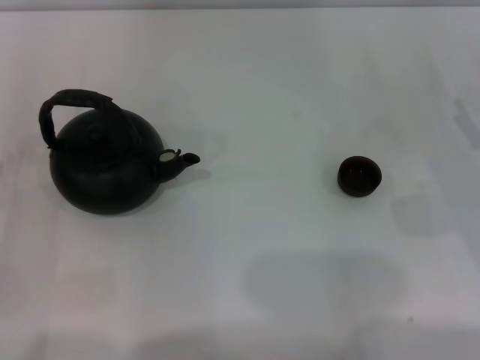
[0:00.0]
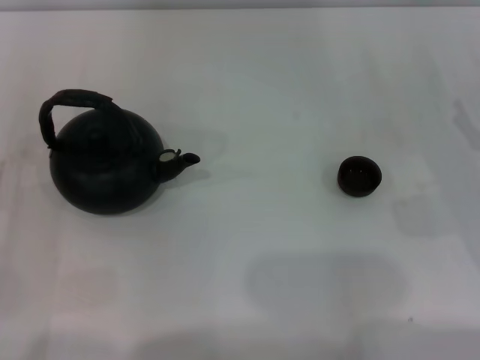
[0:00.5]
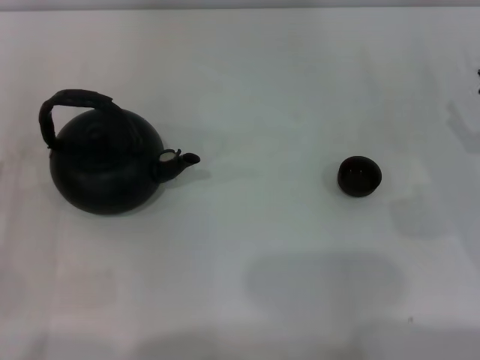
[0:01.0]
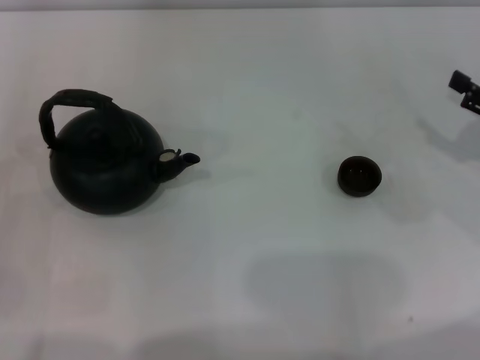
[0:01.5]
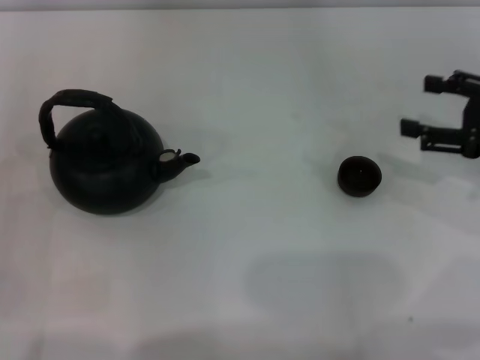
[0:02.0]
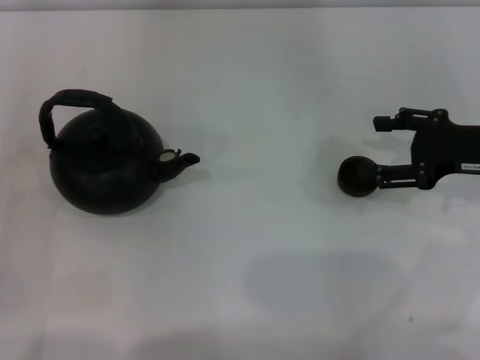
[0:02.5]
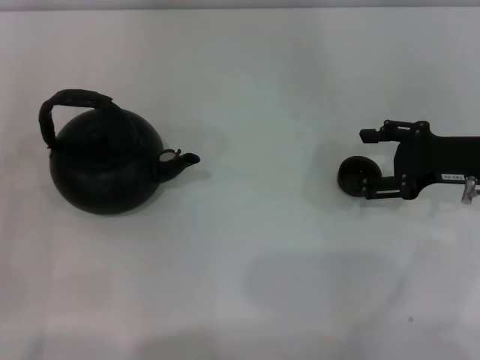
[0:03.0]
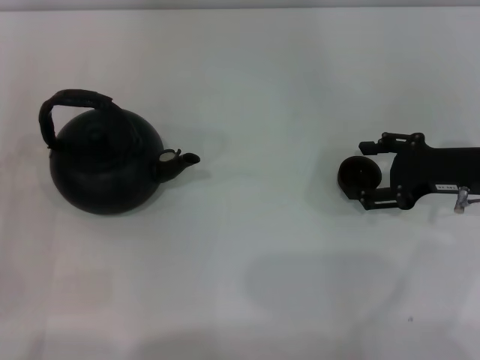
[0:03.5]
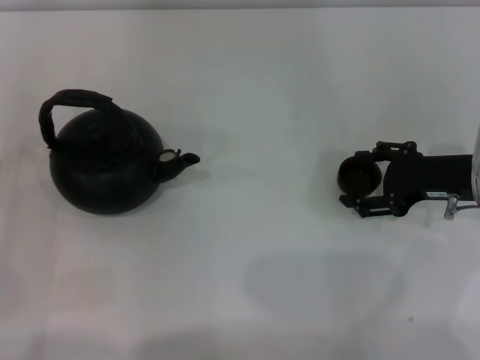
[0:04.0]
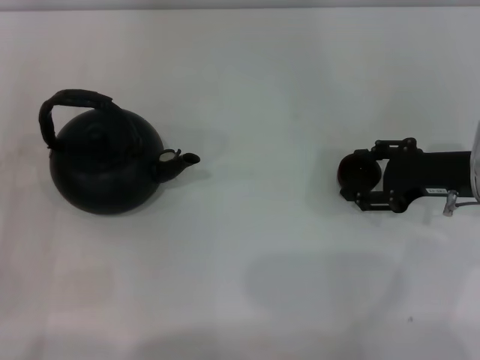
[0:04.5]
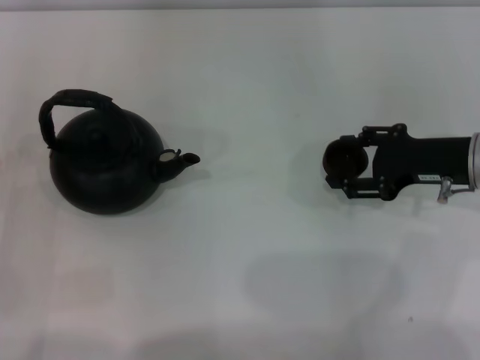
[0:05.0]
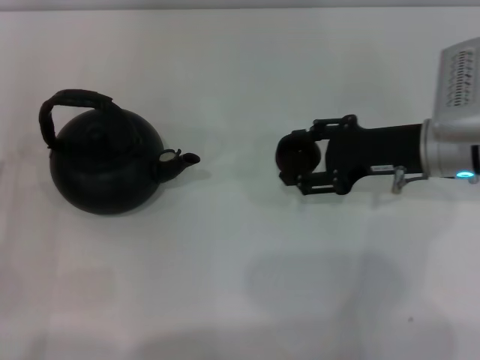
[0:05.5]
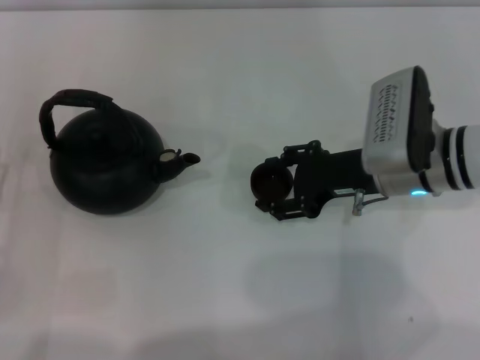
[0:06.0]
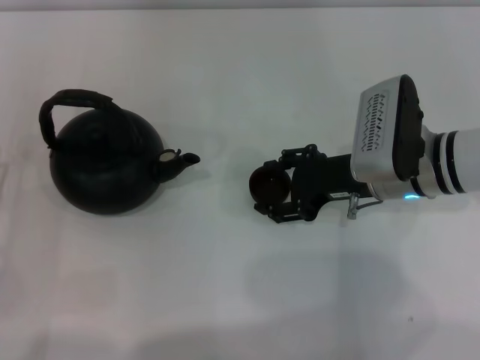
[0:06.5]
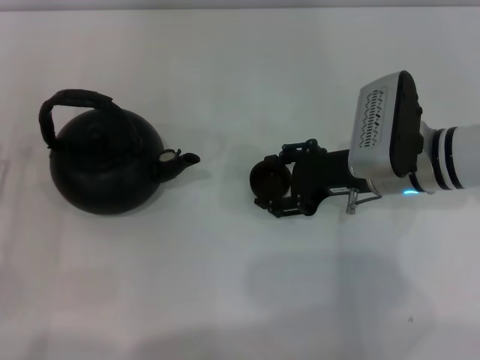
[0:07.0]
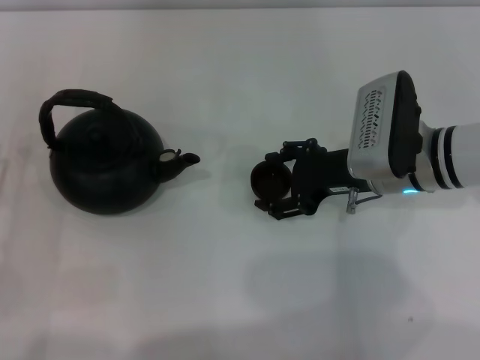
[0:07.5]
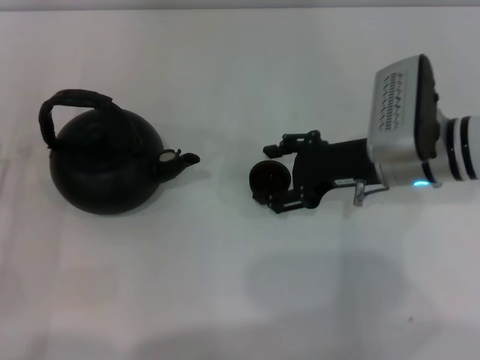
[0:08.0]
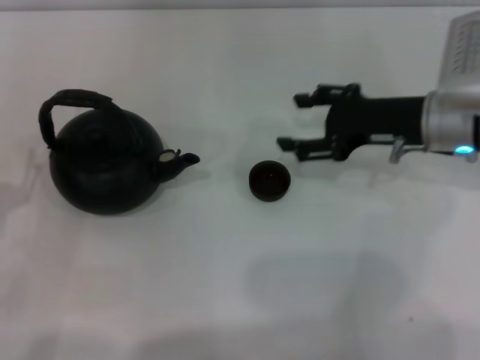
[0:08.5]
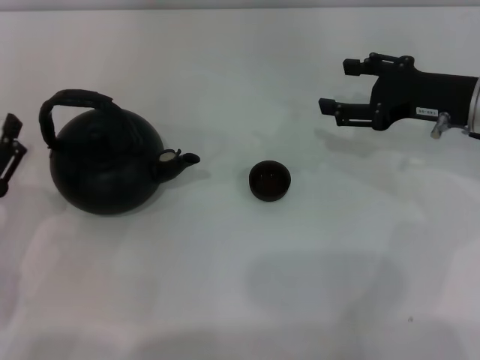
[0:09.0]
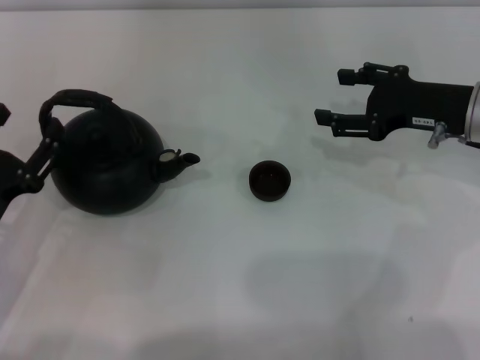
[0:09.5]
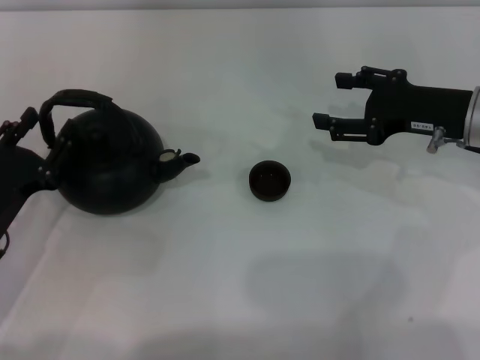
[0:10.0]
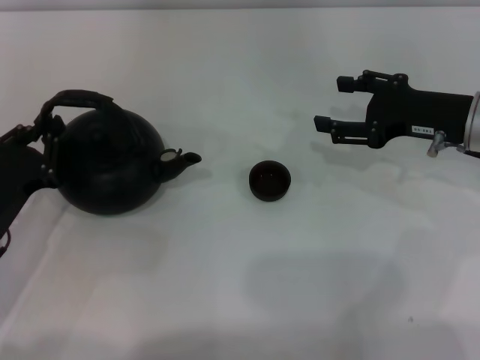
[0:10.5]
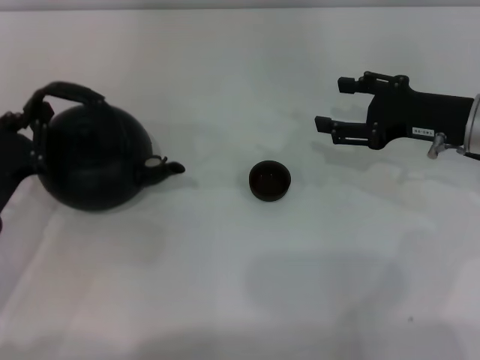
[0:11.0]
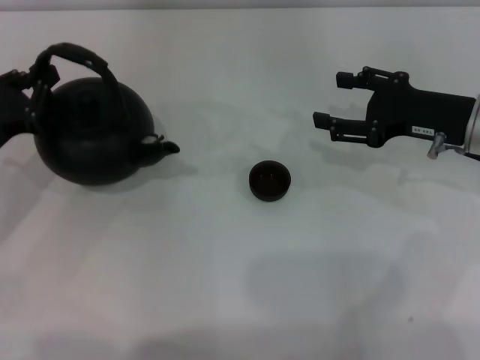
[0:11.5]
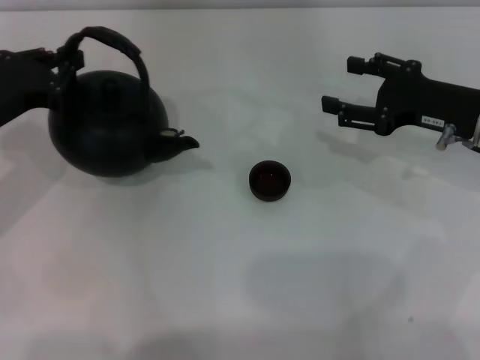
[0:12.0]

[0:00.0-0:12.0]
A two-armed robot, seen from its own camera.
Task of the whole recording: Grasp the handle of the teapot with one hand and pour tea into the teacup.
Step, 0.0 to 5.0 s: Pick up the teacup with the right gripper.
Step, 5.5 to 8.0 s: Place the teacup in the center of view with the right gripper.
Step, 8.5 to 11.0 s: Pick up the teapot with the left gripper.
0.0 to 2.0 s: The right gripper goes about 10 cm upward.
2.0 to 4.0 s: The right gripper heads downward and to the left, covering approximately 10 cm.
4.0 to 6.0 s: The right gripper is displaced to the left by roughly 10 cm, and closes its fingers.
6.0 to 8.0 s: The right gripper opens.
8.0 to 10.0 s: The left gripper ends up roughly 5 cm from where it was; the right gripper is displaced to the right by roughly 10 cm.
10.0 to 12.0 s: The left gripper shifts some 15 cm upward and forward, and closes.

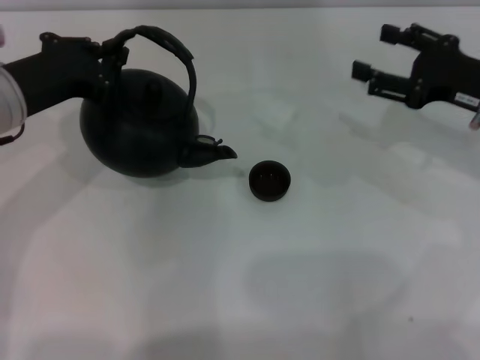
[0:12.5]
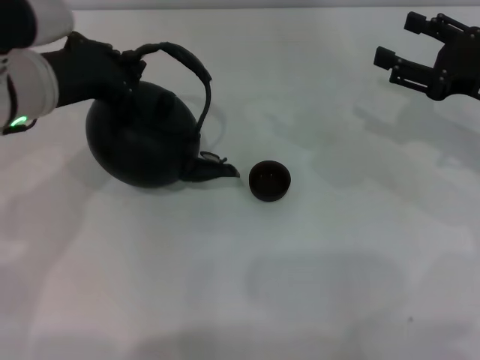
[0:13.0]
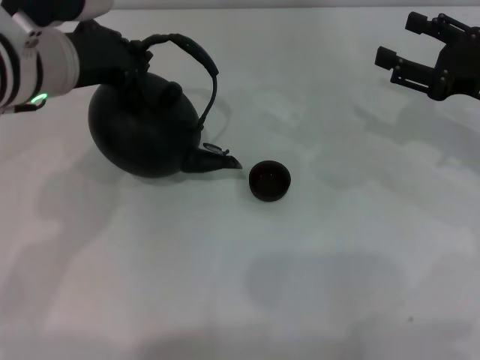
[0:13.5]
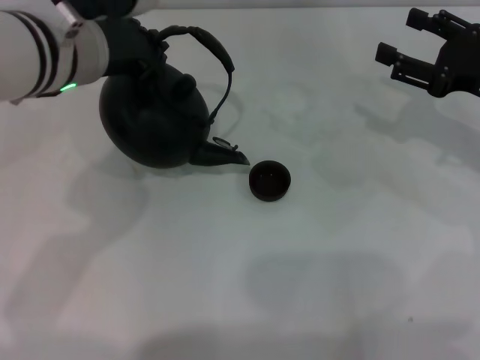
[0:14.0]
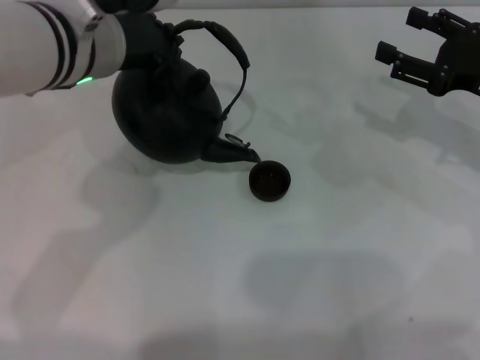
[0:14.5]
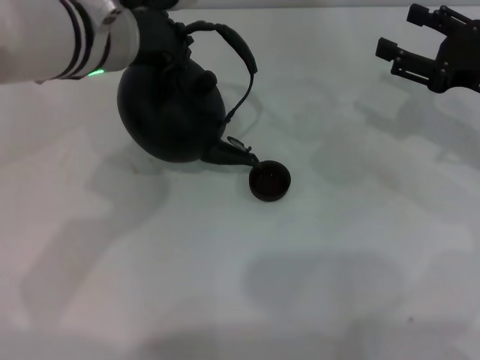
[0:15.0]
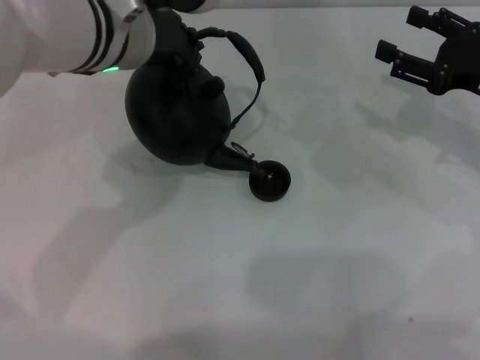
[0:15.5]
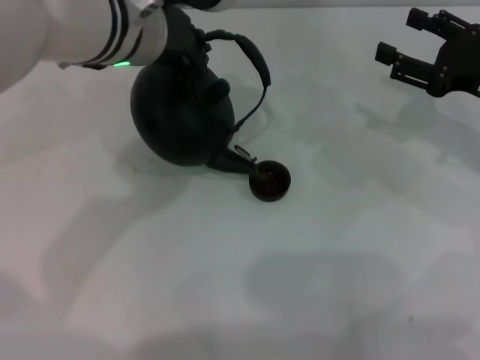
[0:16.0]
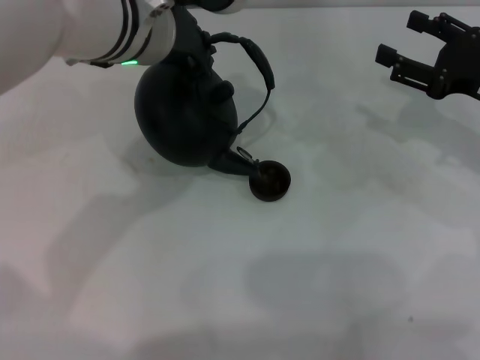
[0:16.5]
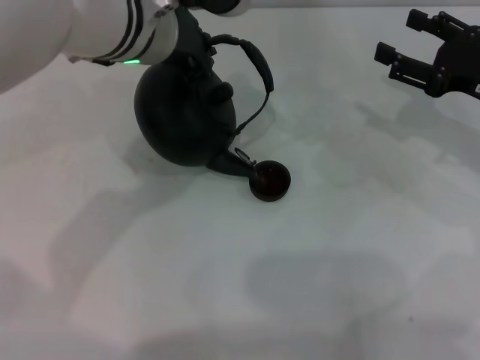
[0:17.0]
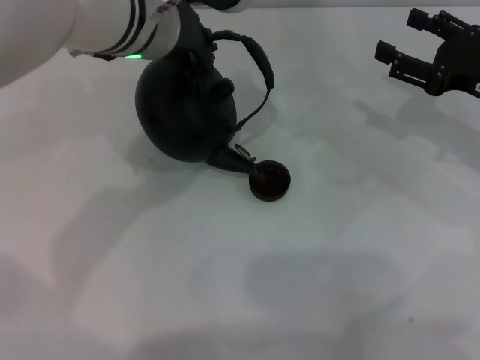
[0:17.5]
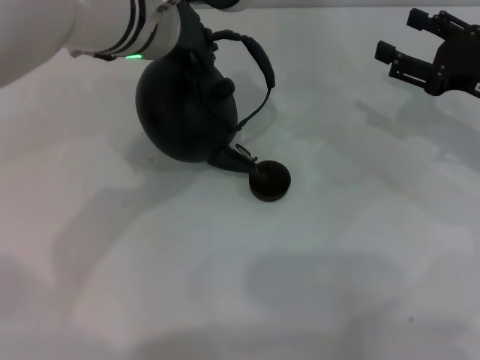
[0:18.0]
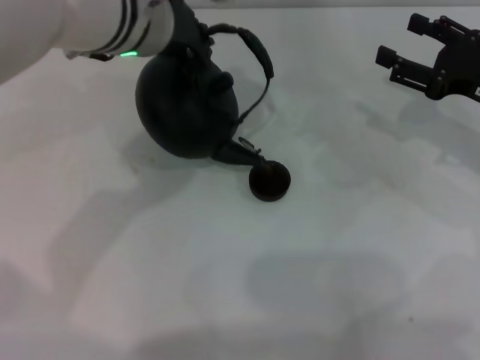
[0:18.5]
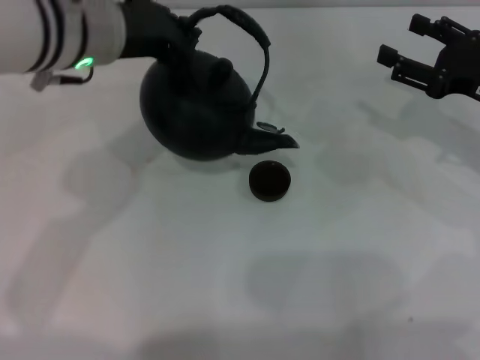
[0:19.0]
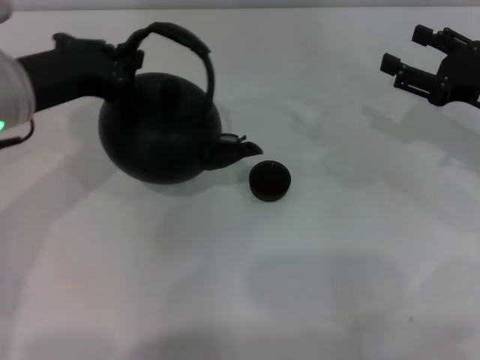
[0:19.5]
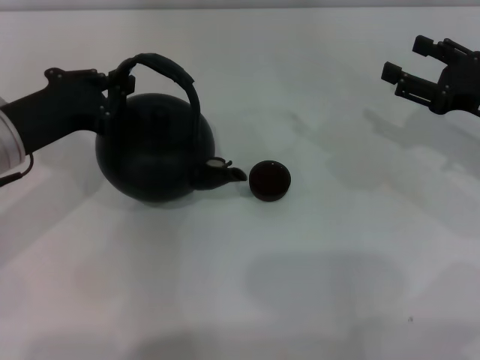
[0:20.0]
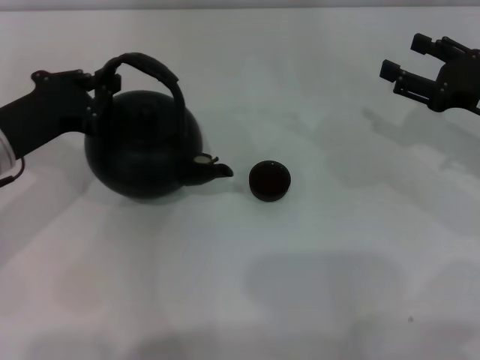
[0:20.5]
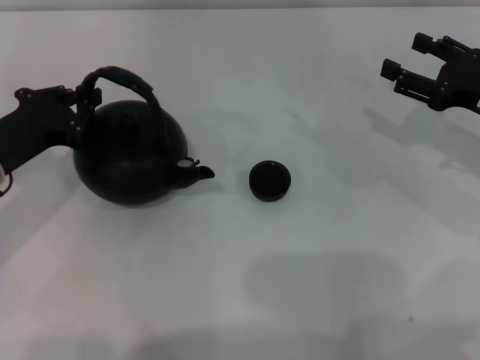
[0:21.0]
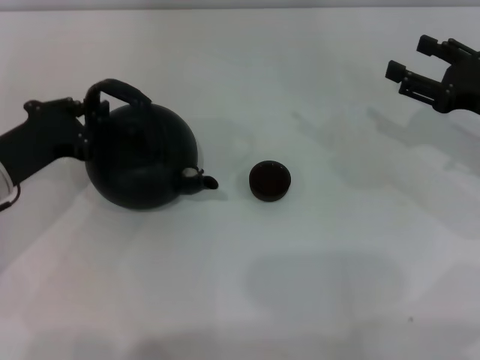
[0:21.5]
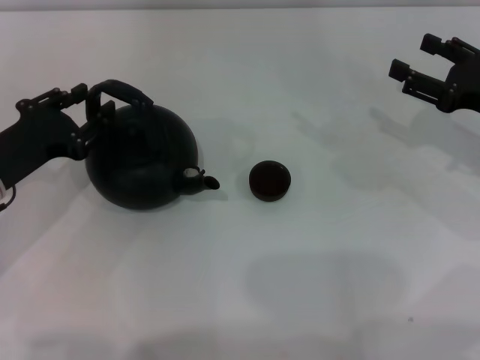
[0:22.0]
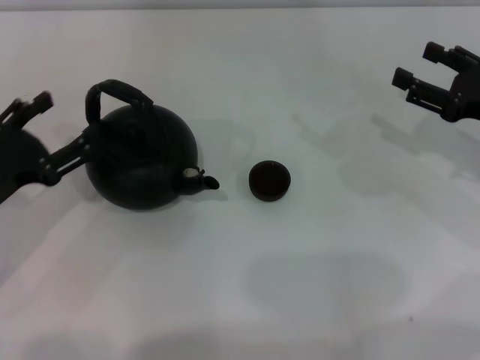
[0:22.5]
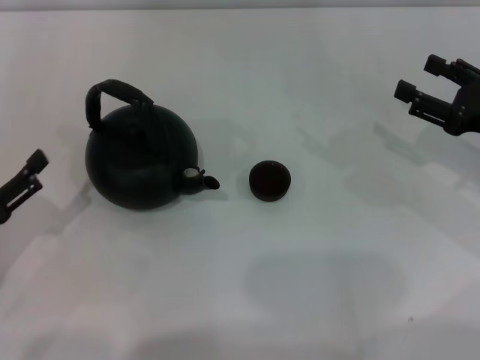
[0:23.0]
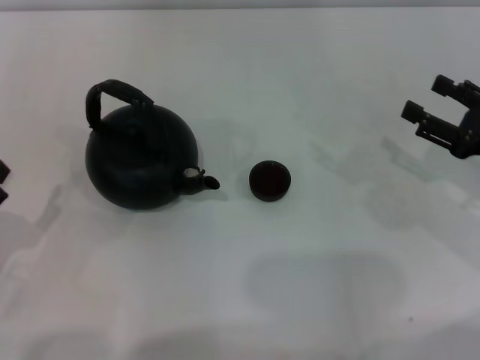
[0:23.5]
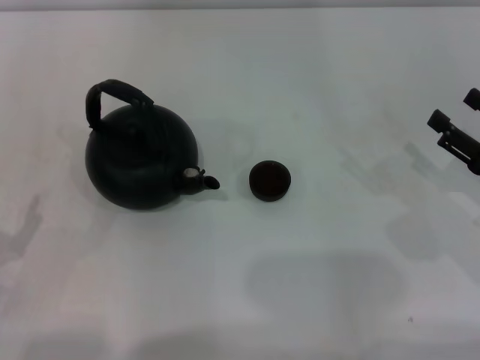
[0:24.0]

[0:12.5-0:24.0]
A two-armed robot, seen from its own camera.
Task of the whole recording: Grasp the handle of the teapot with one hand and pour tea into the teacup.
Step, 12.5 to 19.0 s: Pour tea into the teacup with the left gripper.
Step, 19.5 to 22.5 s: Put down the teapot with the left gripper.
12.5 to 14.5 s: The left gripper goes approximately 10 cm to the right and upward.
14.5 to 16.5 s: The grippers make only small movements.
16.5 to 18.5 s: Both grippers stay about where they are.
18.5 to 20.0 s: The left gripper is displaced to the left, downward and backward by about 20 cm.
20.0 to 22.0 s: The left gripper shifts by about 5 cm.
22.0 to 24.0 s: The left gripper heads backward, covering about 15 cm, and opens its fingers. Meanwhile the right gripper travels backward by some 10 cm.

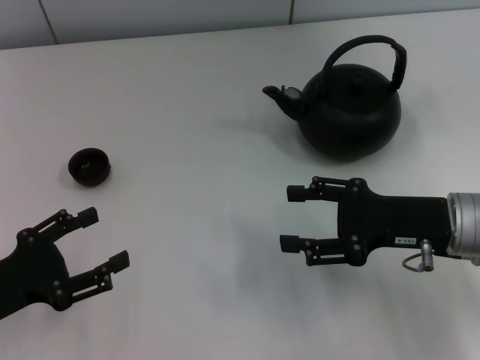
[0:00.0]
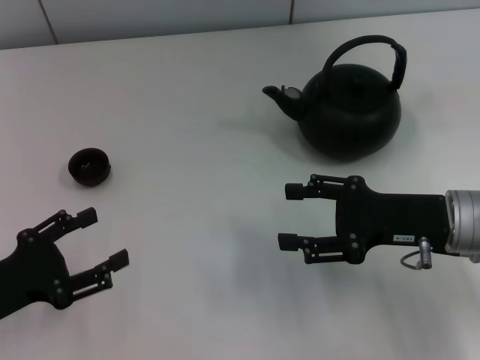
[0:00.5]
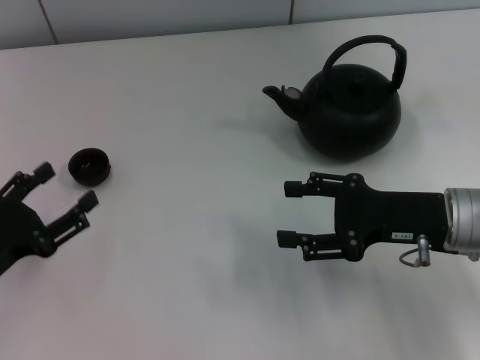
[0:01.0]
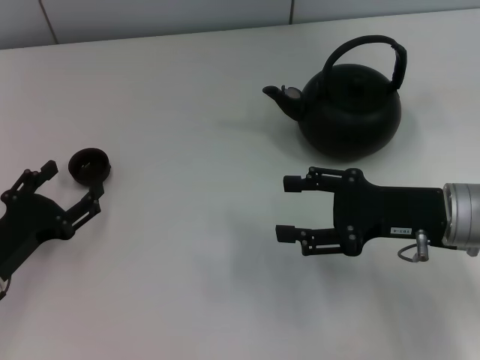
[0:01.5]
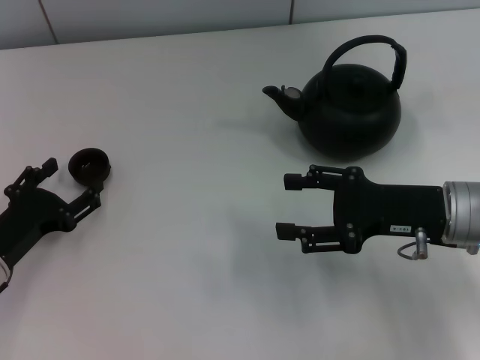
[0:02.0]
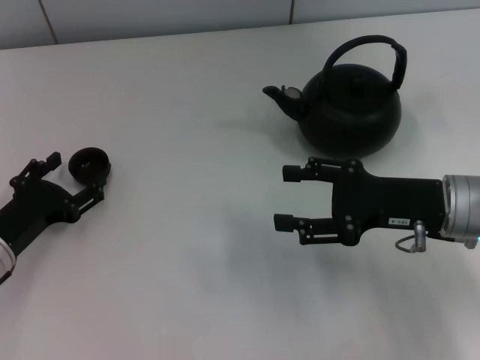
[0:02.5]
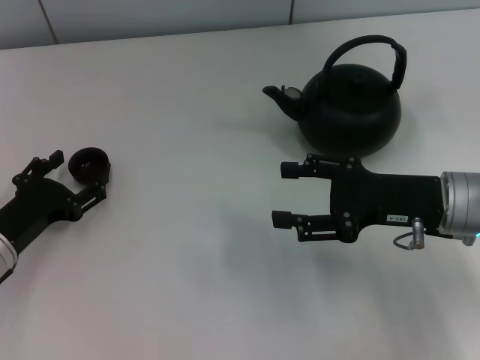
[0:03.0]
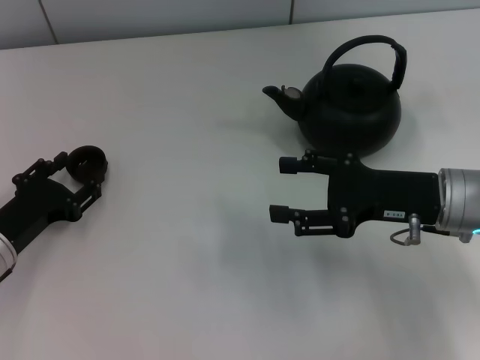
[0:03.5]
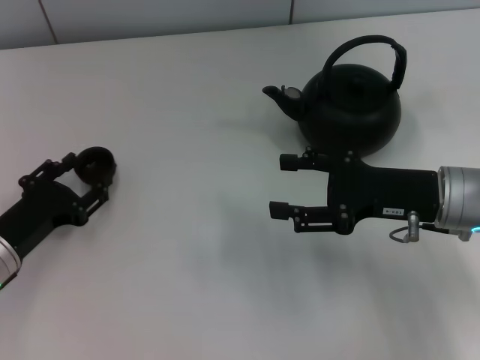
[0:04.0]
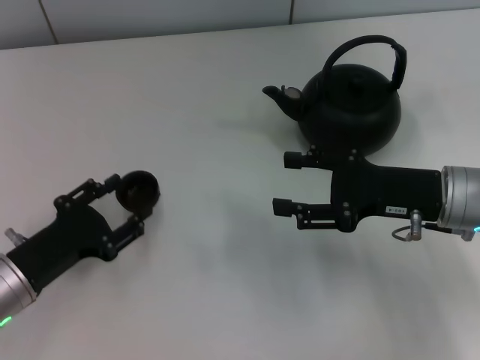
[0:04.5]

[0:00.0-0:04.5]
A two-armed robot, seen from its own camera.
Task of the whole recording: Grasp the handle of the teapot with one hand and pour tea into the teacup.
Step, 0.0 to 4.0 s: Pick up the teacup with the left gripper.
0.0 to 2.0 s: The left gripper is displaced forward by approximately 5 cm.
2.0 to 4.5 s: The left gripper closes up.
